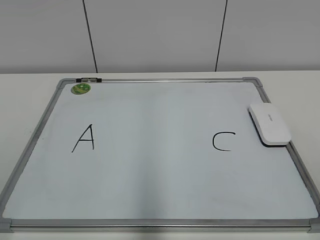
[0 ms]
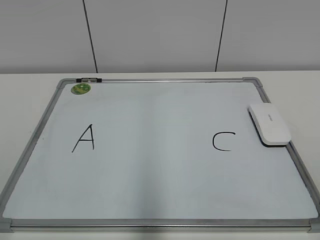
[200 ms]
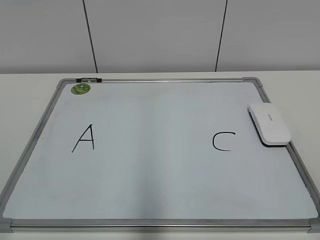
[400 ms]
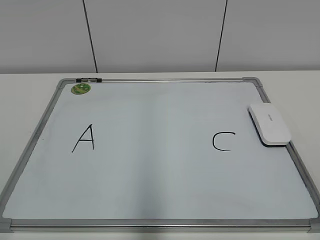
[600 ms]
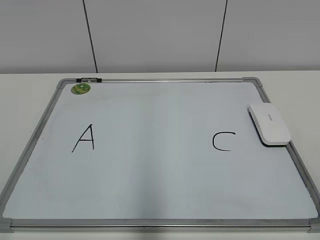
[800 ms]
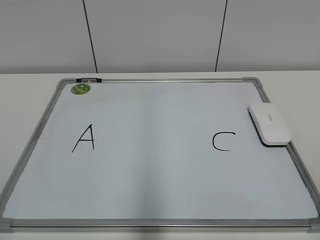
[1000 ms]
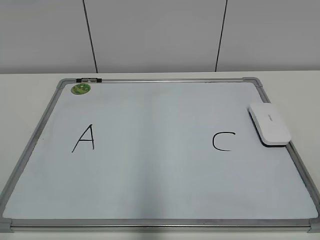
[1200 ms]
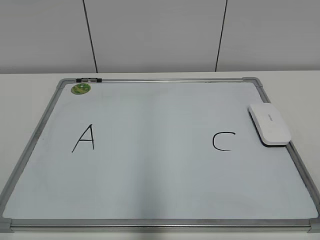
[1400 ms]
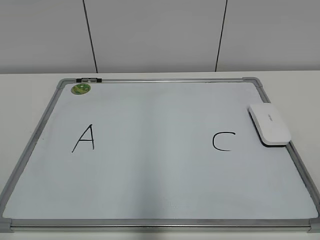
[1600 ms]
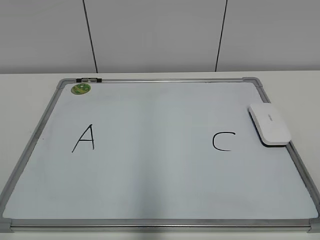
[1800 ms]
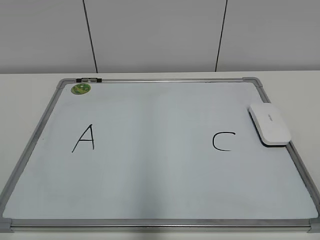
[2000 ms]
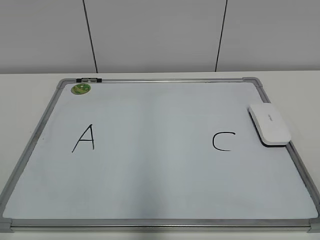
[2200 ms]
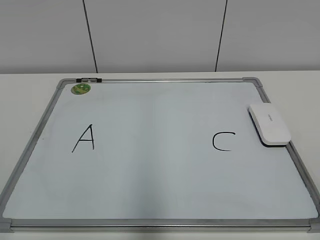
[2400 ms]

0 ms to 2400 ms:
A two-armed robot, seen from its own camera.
Task of the whole recording: pick up the eraser on the blackboard and erase the letter "B".
1200 ms to 2400 ms: The two grippers keep their place.

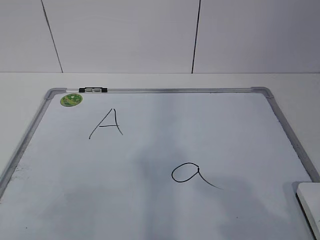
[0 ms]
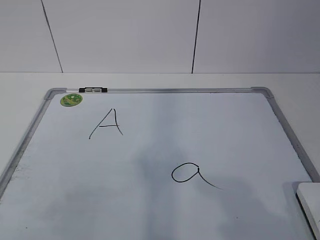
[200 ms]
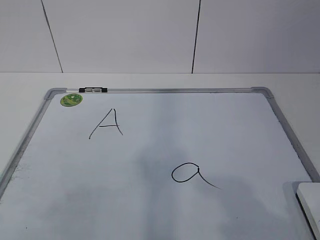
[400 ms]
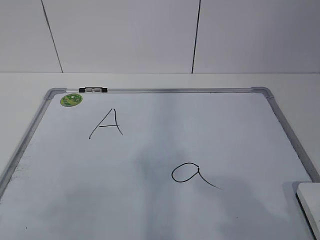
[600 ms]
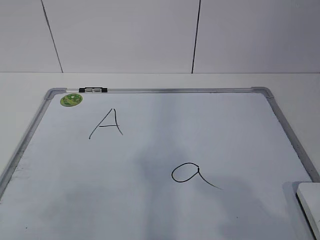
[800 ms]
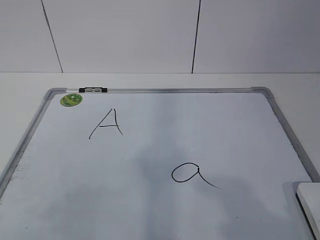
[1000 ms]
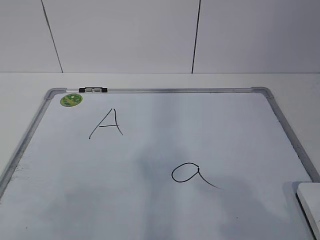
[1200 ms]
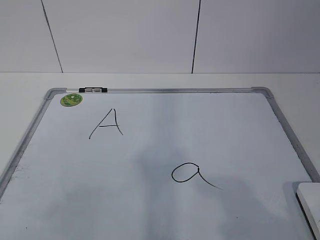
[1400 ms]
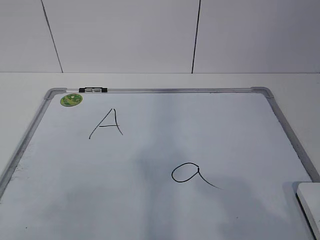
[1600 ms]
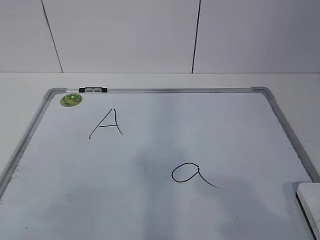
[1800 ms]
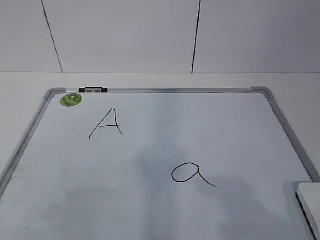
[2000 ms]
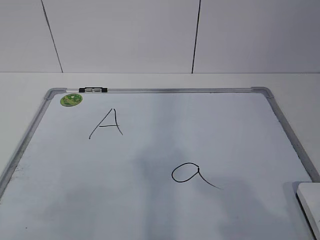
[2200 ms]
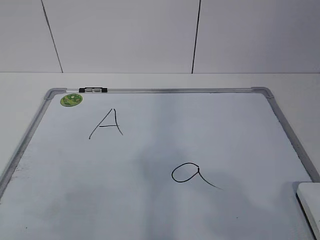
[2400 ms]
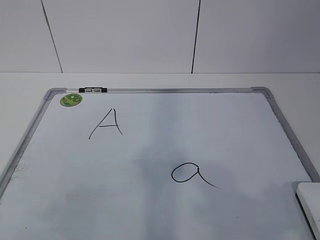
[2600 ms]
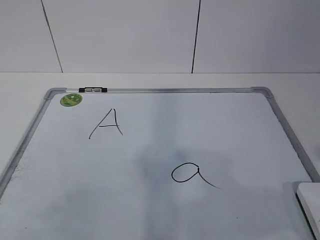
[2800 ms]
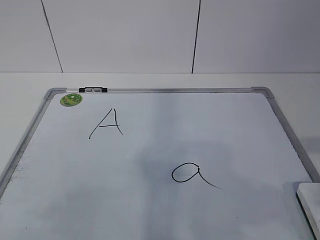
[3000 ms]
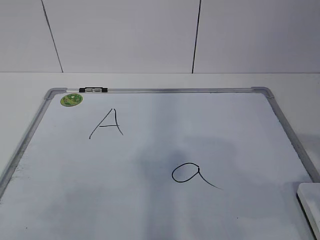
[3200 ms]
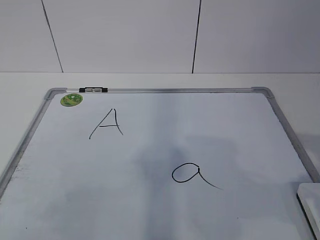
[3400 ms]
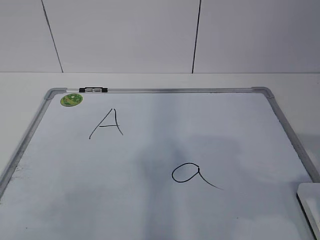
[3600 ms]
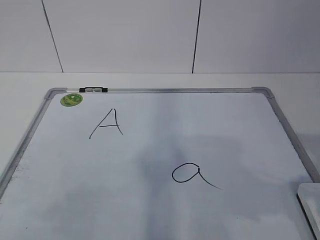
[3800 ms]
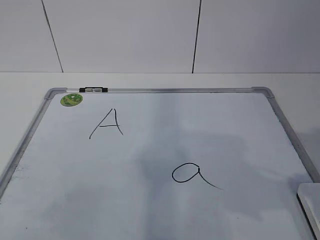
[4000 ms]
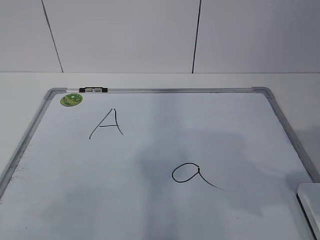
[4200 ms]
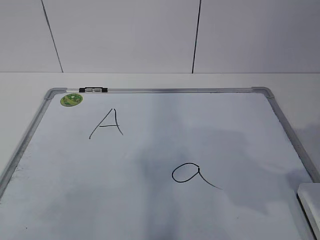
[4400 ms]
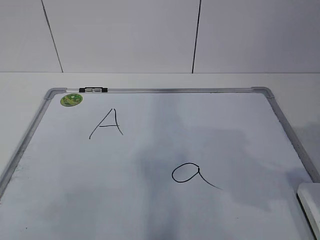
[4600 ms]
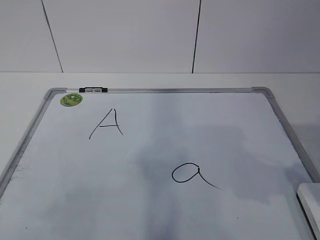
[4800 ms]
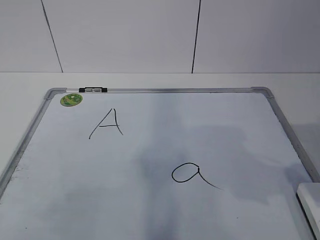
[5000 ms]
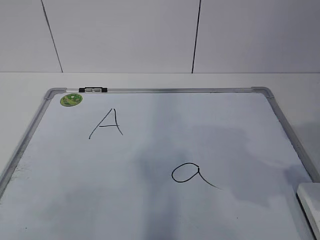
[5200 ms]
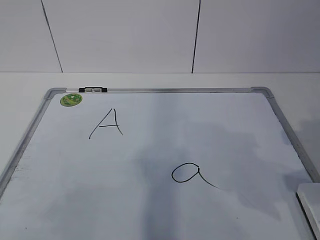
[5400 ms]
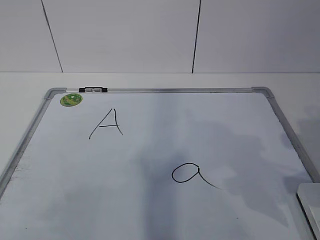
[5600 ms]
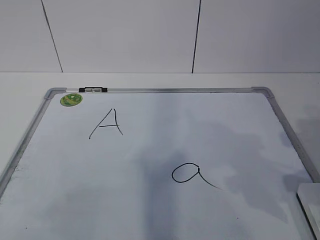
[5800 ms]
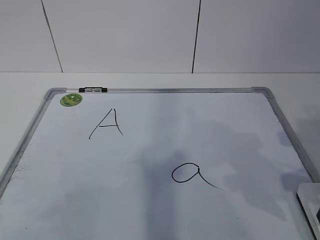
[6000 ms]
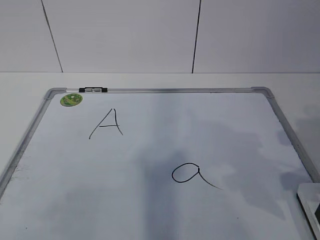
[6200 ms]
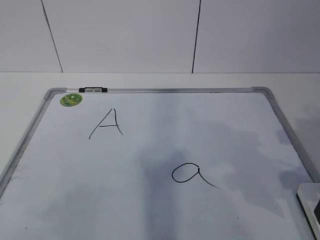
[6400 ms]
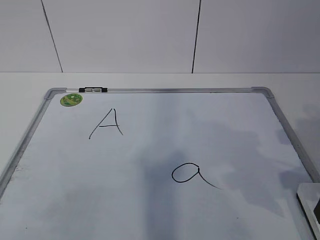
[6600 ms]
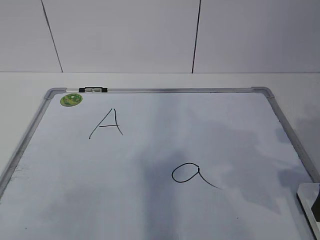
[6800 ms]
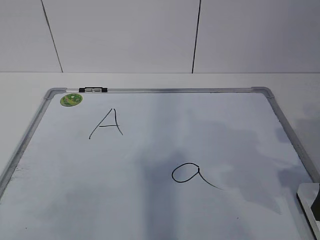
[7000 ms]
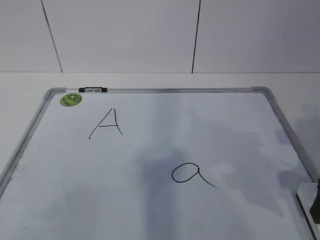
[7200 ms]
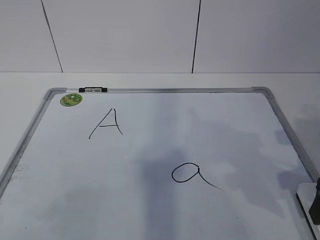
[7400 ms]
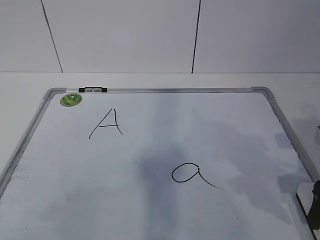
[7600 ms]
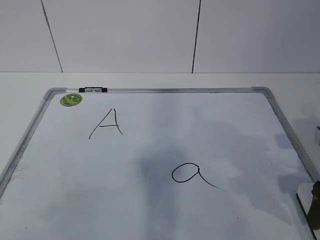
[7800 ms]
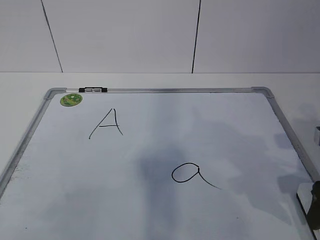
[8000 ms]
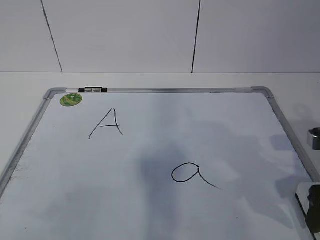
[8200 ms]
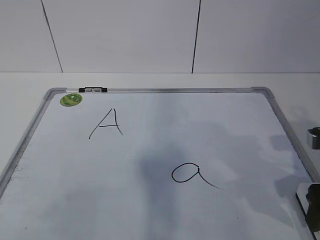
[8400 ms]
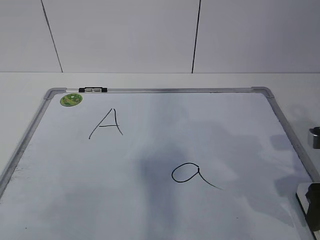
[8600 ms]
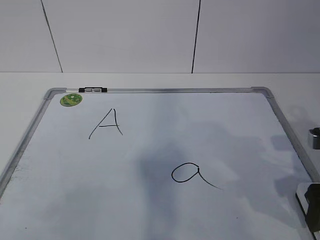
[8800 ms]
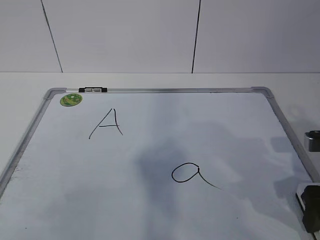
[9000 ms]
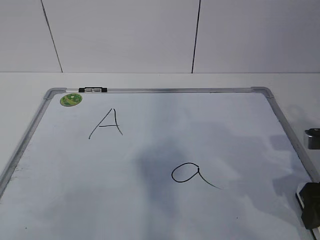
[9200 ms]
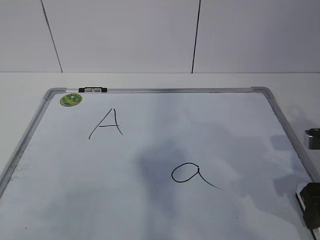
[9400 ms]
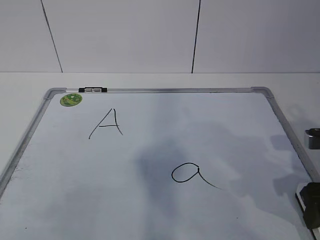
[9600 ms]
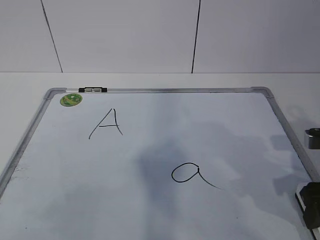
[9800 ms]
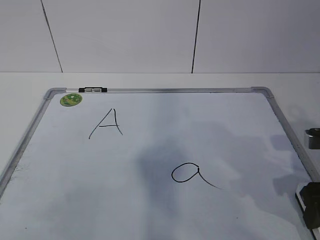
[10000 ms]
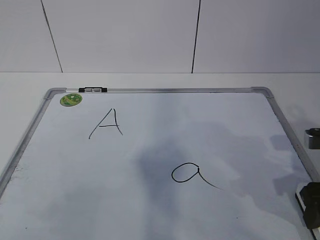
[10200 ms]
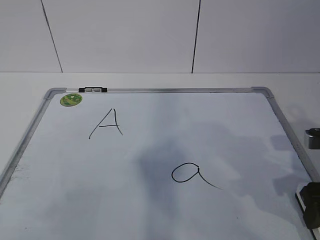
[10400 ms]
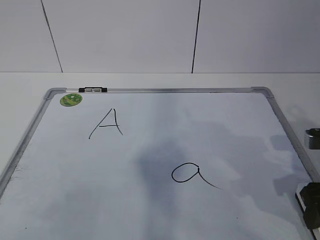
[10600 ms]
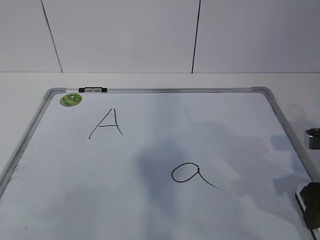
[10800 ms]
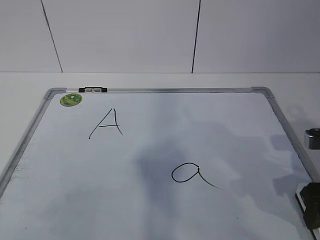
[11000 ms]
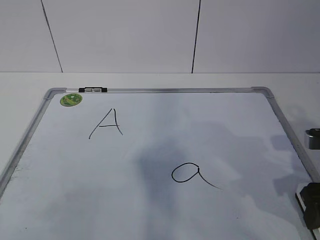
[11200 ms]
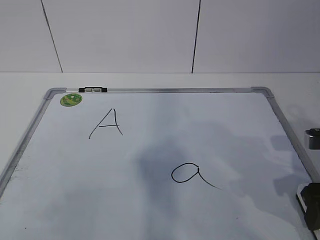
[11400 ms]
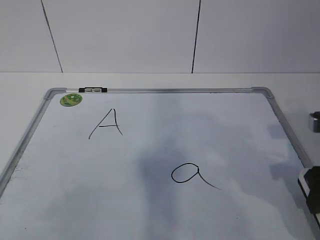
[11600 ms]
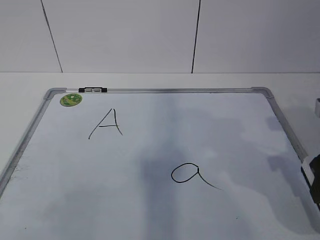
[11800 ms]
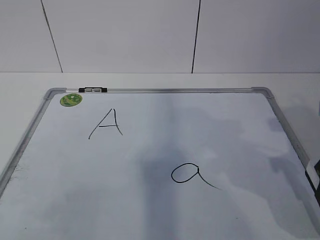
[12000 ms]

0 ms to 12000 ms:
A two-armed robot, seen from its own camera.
Task of the whole recording: pick up the eraser on the blackboard and erase the letter "a".
7600 ms to 9000 ms: There are only small adjustments of the grippers.
10400 ms to 12000 ms: The right gripper is displaced upward by roughly 5 cm.

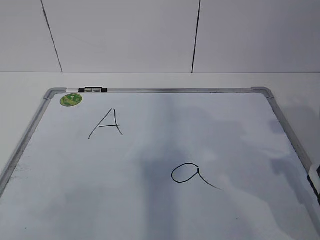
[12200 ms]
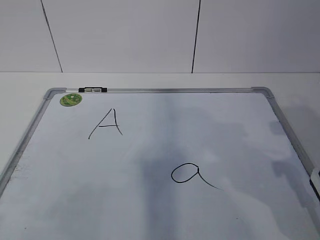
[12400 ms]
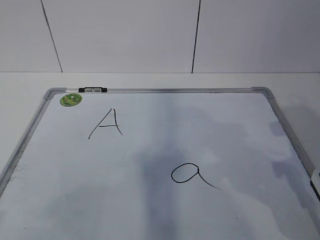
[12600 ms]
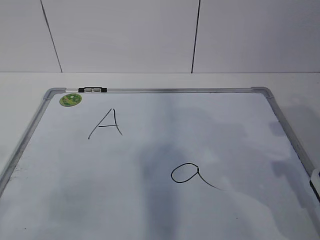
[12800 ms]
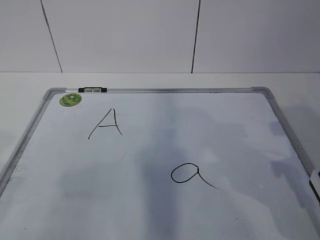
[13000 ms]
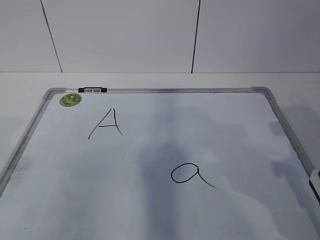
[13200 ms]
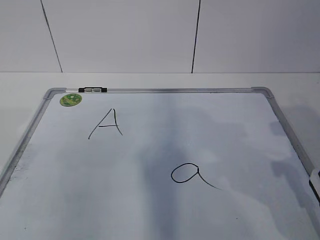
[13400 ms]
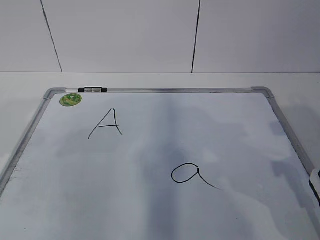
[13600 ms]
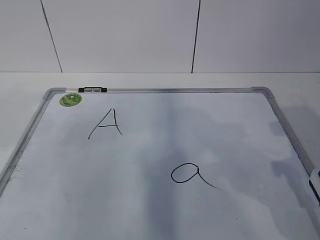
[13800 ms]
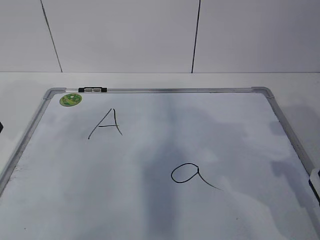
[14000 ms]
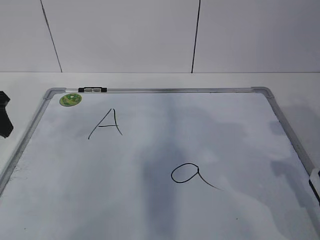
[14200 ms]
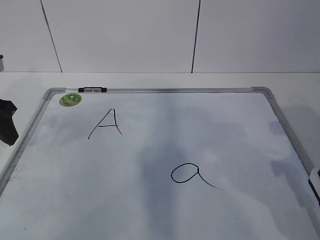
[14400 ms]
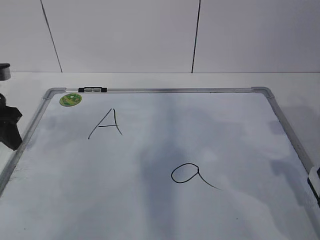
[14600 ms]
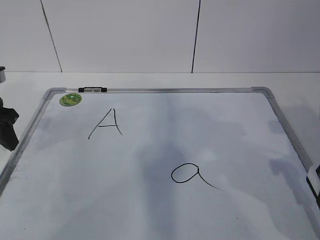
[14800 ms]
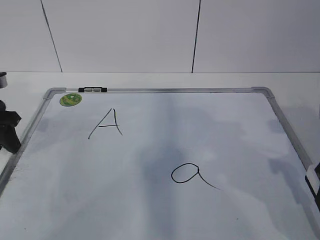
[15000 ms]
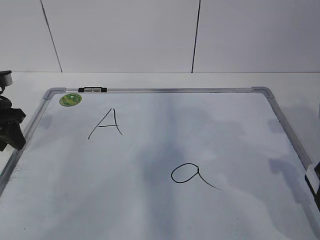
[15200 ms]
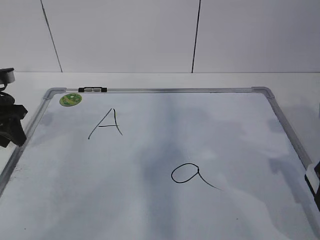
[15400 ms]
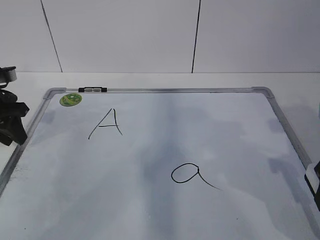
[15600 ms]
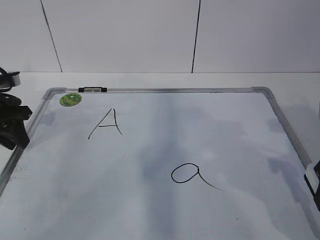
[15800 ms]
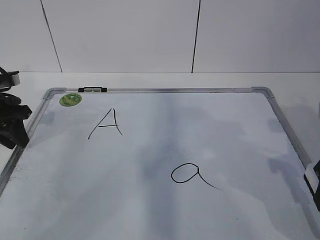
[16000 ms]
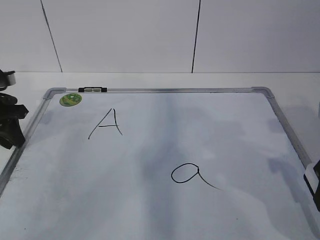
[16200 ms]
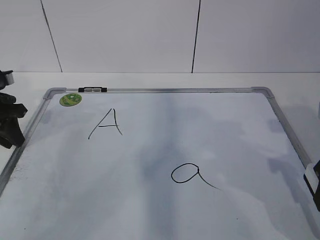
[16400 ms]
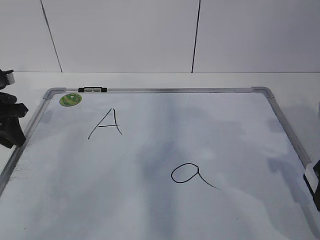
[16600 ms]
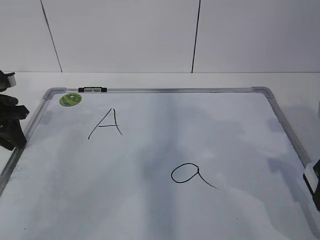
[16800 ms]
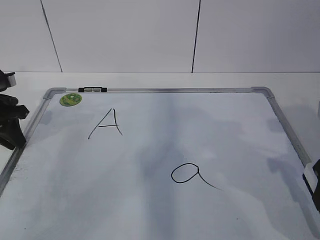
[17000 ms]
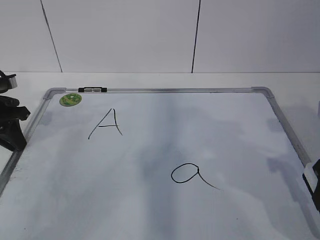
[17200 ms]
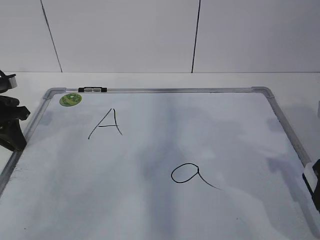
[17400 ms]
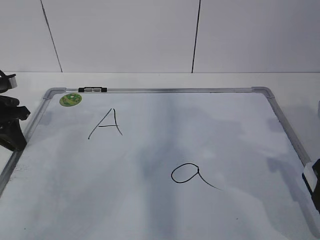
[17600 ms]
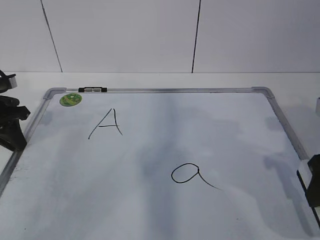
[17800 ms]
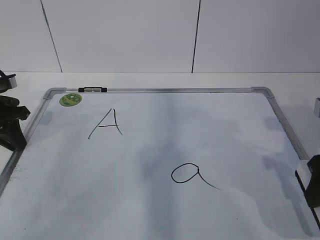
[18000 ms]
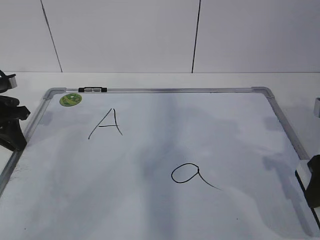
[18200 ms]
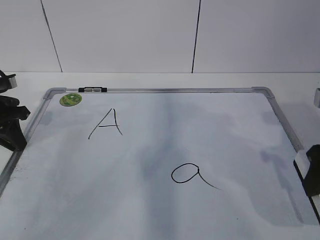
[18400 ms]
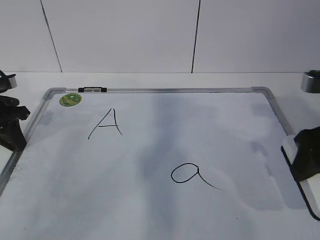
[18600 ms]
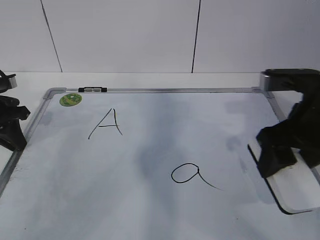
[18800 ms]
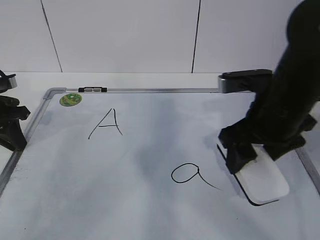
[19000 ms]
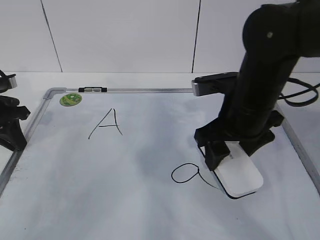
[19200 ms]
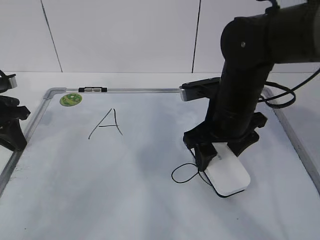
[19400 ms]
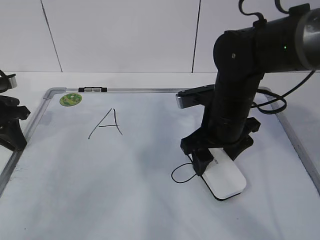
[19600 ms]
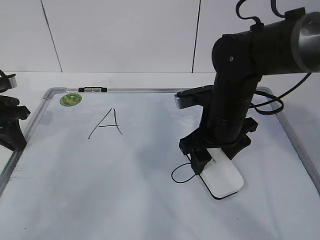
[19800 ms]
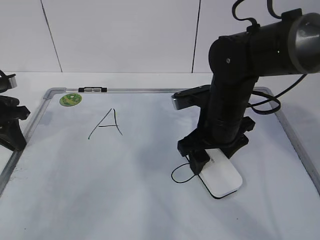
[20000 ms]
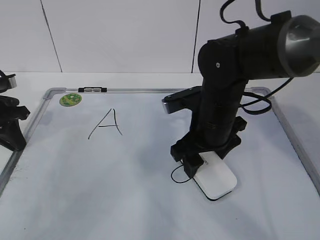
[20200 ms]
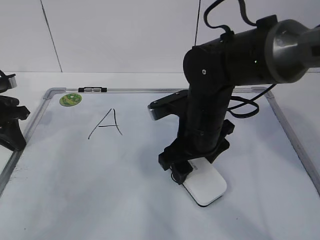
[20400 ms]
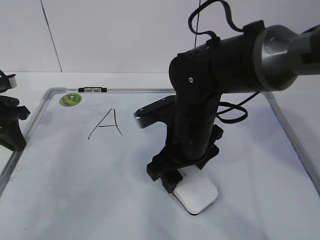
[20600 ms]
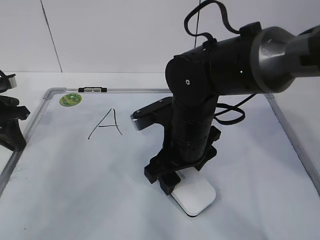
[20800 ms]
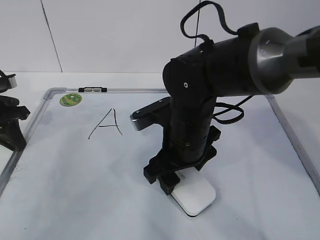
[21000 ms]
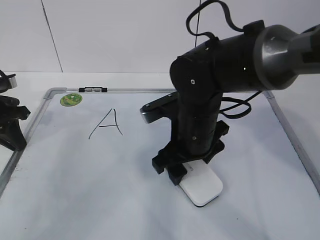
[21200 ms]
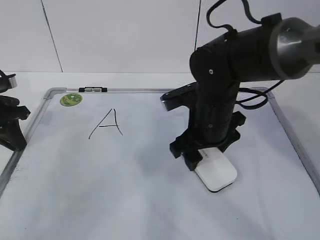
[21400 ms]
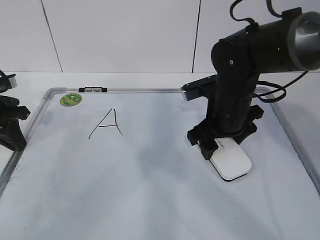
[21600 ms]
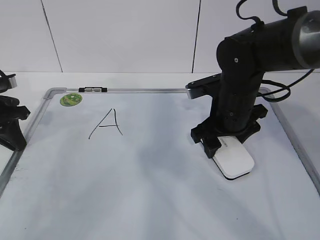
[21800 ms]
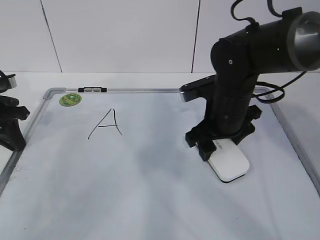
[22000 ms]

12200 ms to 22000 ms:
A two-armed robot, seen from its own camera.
Task of the whole recording: pick up the eraser on the blackboard and erase the letter "a".
Step, 14400 ms to 18600 ms: Erase the letter a with your right hand.
Step, 18800 ms to 21600 ms: Put down the eraser with your right hand.
13600 ms to 15000 ms: The left gripper shifts about 15 cm forward and downward.
15000 ms to 16400 ms: The left gripper closes its fingers.
16400 ms to 17800 ms: Neither gripper changes place.
17800 ms to 19200 ms: The right gripper is displaced to the left and forward by about 15 cm.
19200 ms to 20600 ms: The right gripper heads to the left, covering approximately 10 cm.
20600 ms to 22000 ms: The right gripper goes some 10 cm to the right and forward.
